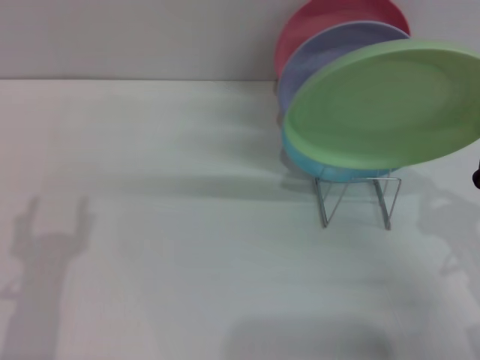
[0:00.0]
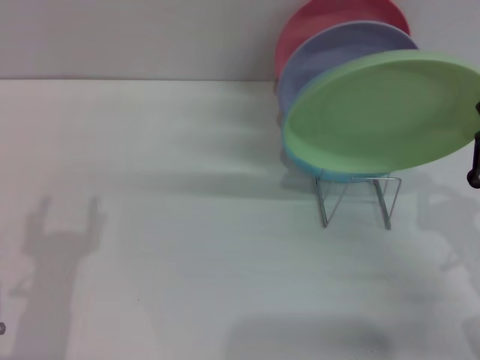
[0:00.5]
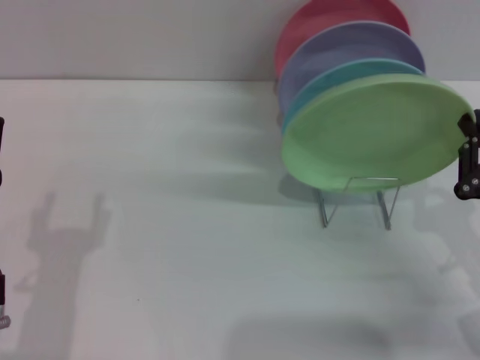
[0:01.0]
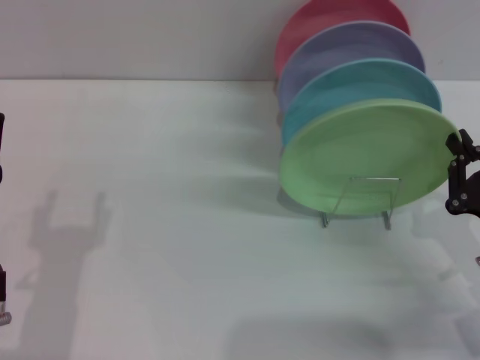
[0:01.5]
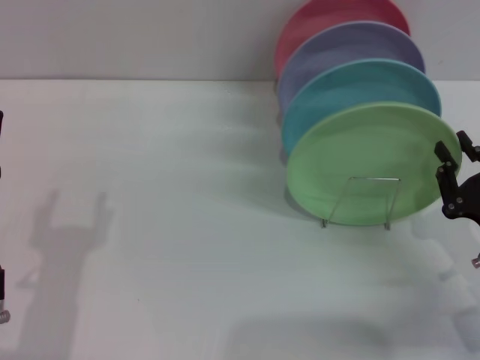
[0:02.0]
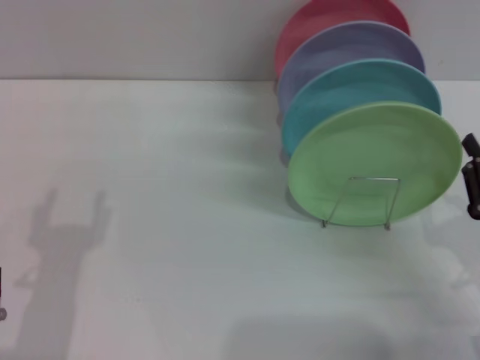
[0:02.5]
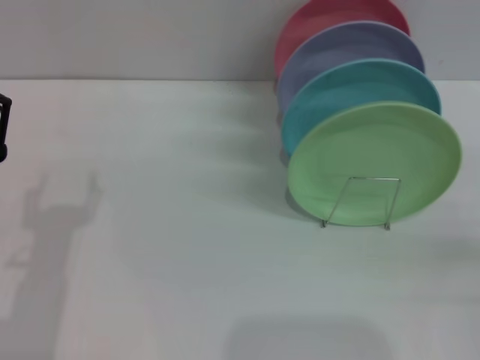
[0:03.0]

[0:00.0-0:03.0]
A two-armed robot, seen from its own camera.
Task of the whole recording: Grip the plate with one hand, pass it to the other, then set it on the shelf.
Step, 0:00.0 to 0:02.0: Place the plate on the shelf with the right gripper.
0:00.0 to 0:01.5: The grippers make only small movements.
0:01.5 to 0:03.0: The right gripper moves to the right and backward, about 10 cm, and opens up.

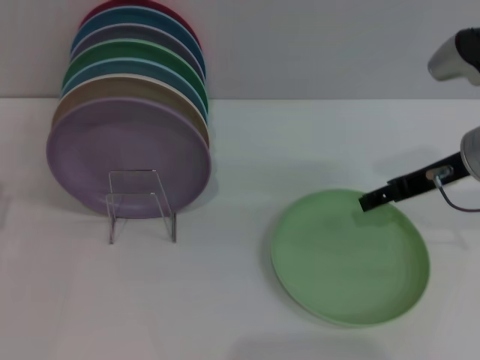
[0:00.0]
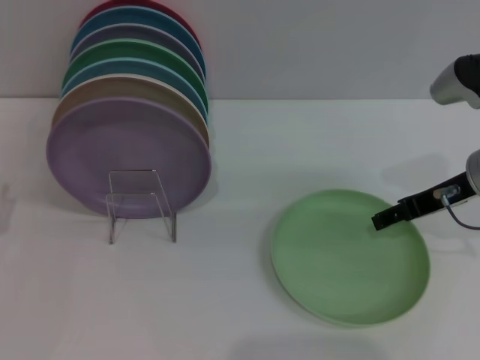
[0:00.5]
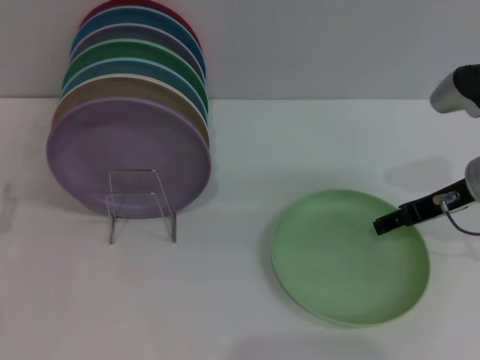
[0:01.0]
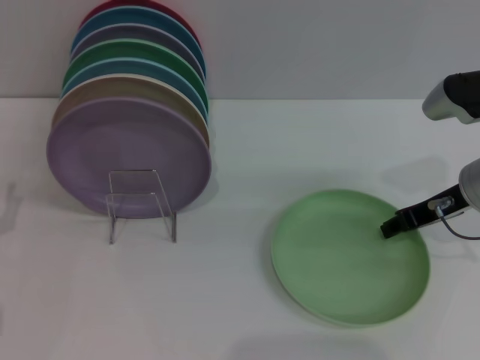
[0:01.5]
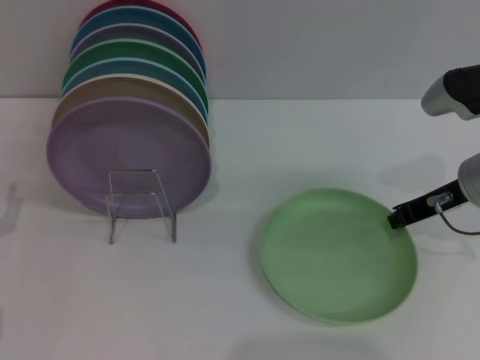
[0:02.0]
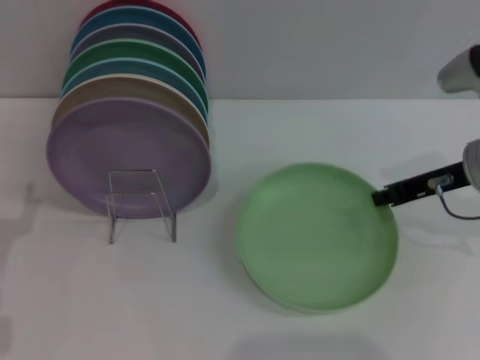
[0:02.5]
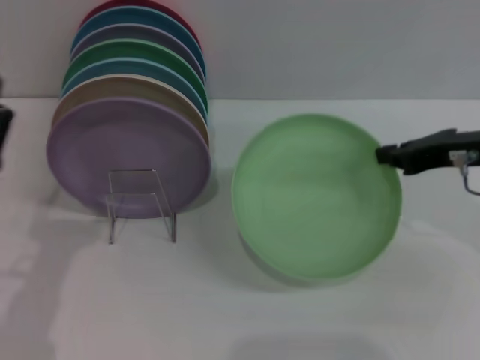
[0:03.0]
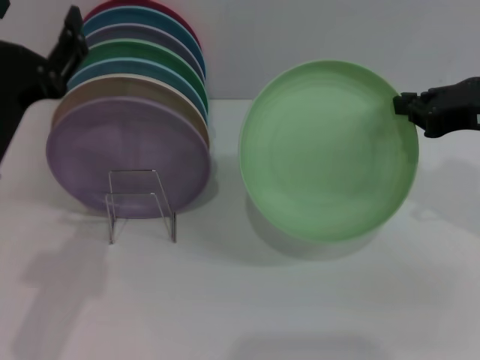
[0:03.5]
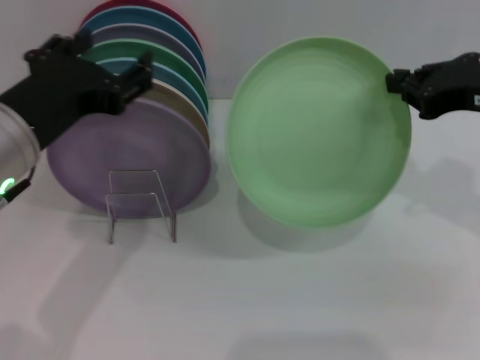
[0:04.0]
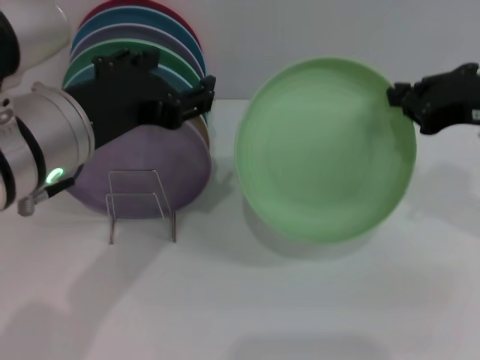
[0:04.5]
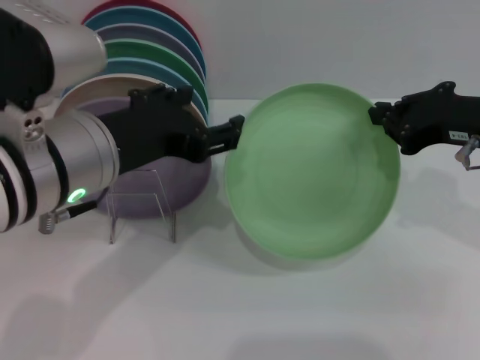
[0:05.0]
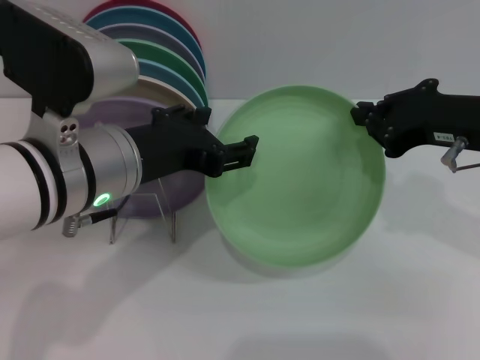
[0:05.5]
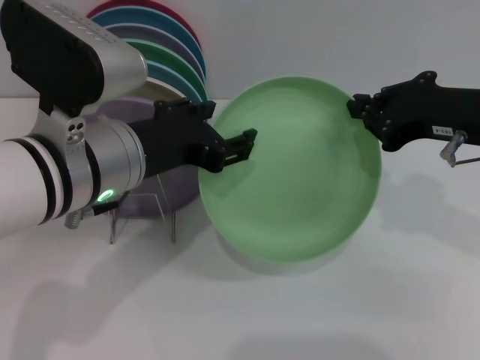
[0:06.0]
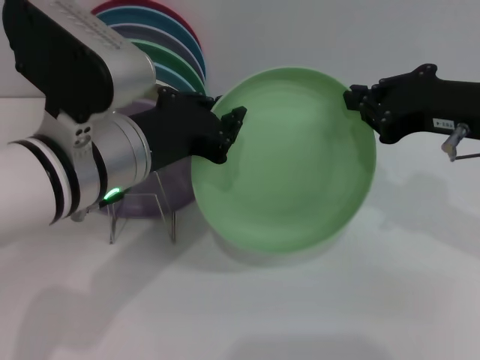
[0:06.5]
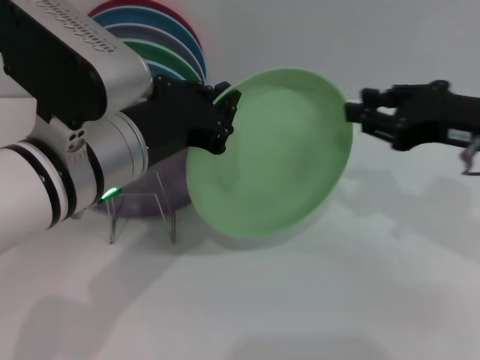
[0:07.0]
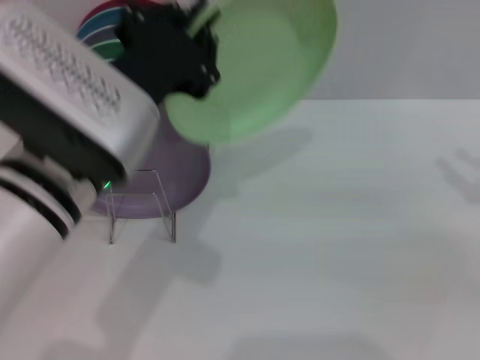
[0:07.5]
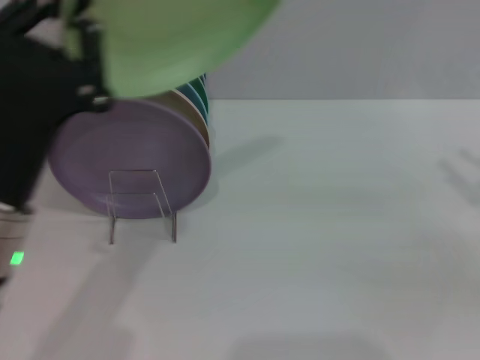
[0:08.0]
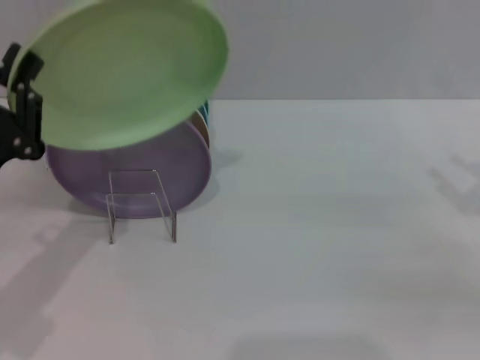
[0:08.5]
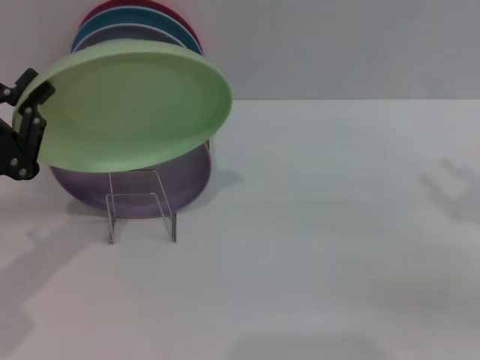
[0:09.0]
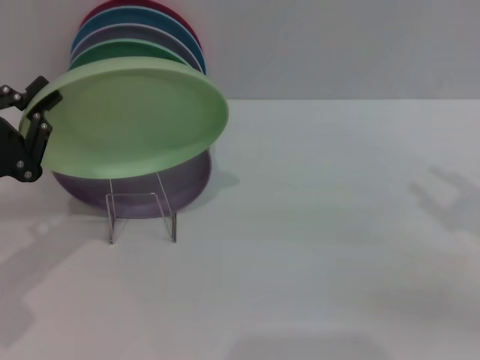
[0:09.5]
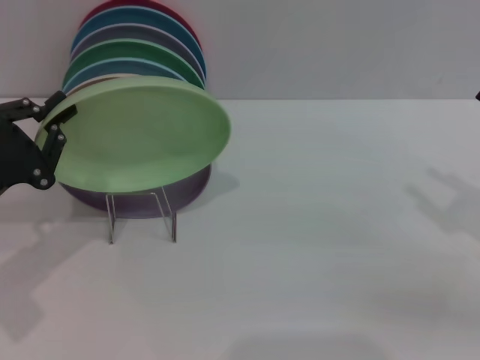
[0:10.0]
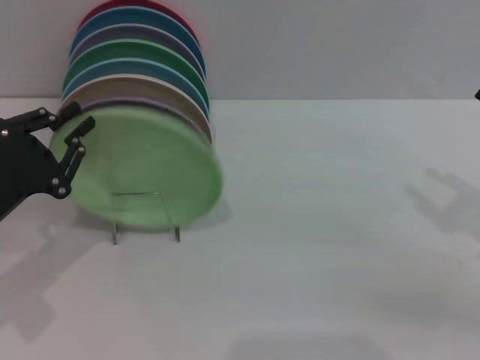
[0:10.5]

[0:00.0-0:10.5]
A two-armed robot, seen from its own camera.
Task of the whole recording: Grip the plate with one hand, pass it to the other, then set it on the shelf.
Step, 0:00.0 to 0:03.5: Pick up the plate with the right gripper.
Step, 0:04.0 to 0:08.5: Pass the plate from the right gripper to the left gripper.
0:00.0 to 0:02.0: The right gripper closes.
0:02.0 to 0:04.0: The right gripper goes approximately 10 cm upward; the left gripper travels upward and to the right by roughly 20 cm.
0:04.0 to 0:06.5: The left gripper shifts about 5 cm to the right, and closes.
0:06.5 to 0:08.5: The right gripper heads to the right, downward and backward, covering approximately 15 cm, and opens up. Meanwhile the left gripper shifts some 15 cm to the left and downward, and closes up.

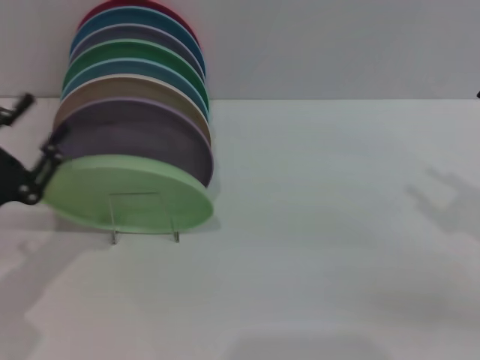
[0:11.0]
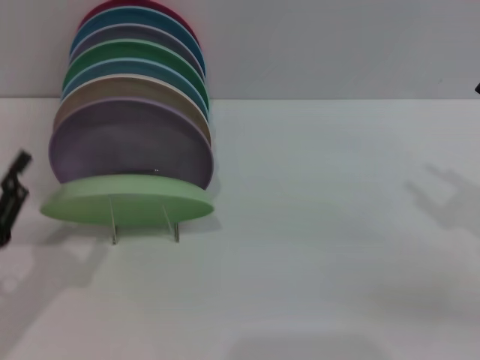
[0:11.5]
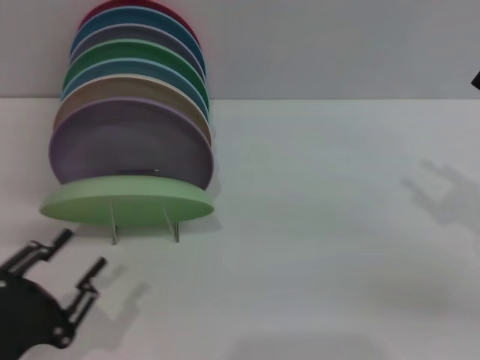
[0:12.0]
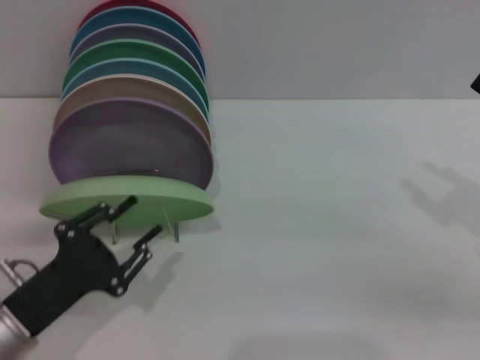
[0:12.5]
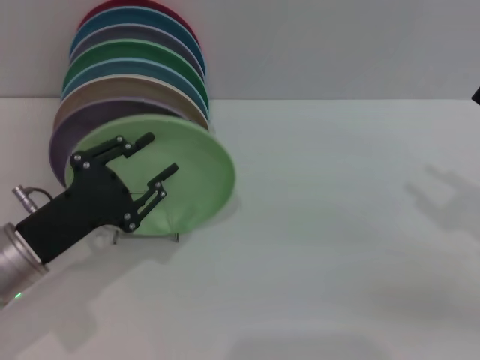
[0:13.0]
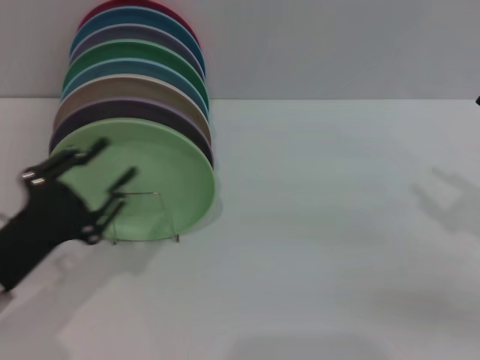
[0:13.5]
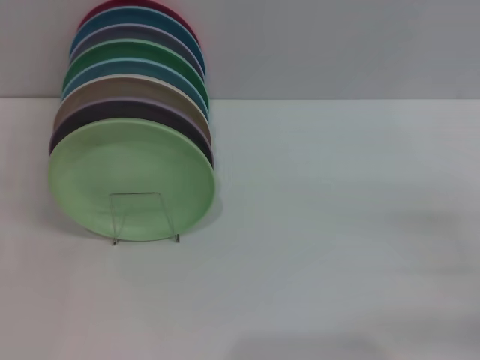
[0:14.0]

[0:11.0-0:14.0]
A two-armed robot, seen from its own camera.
Task of the whole recording: Grip the plate with one hand, pass it to the other, then set it on the shelf.
Step, 0:11.0 to 0:13.0: Place the plate on the shelf with the left gripper.
0:11.0 to 0:12.5: The left gripper travels to the right by some 5 cm.
0:12.5 to 0:14.0: The left gripper shifts roughly 10 cm to the left. The right gripper travels downward by roughly 5 cm.

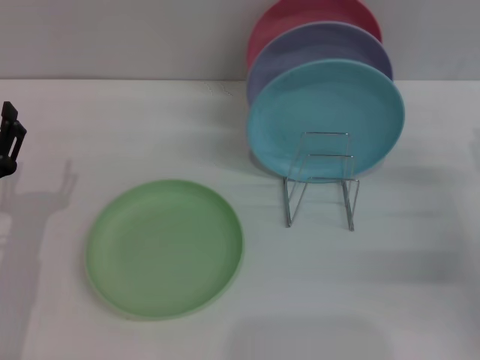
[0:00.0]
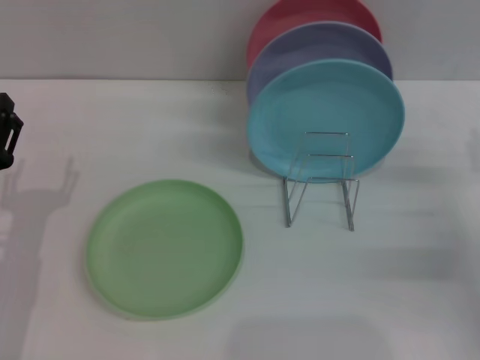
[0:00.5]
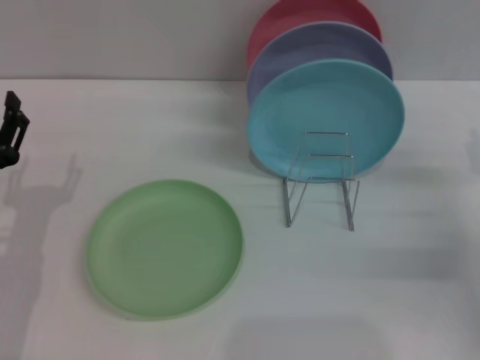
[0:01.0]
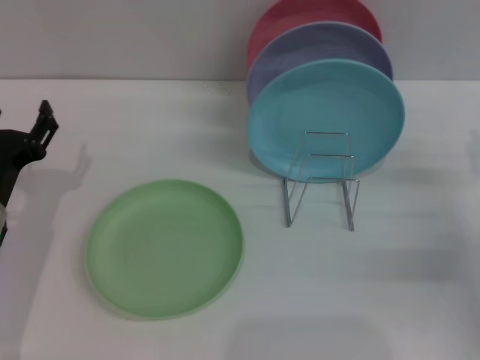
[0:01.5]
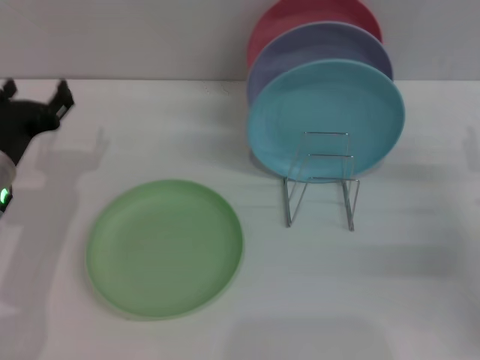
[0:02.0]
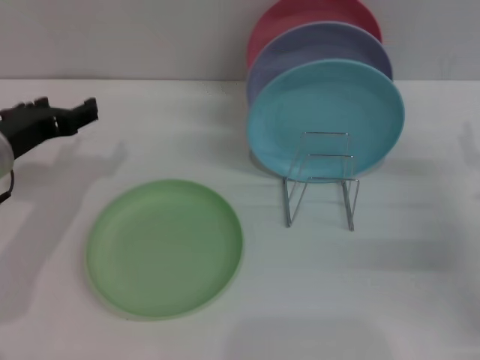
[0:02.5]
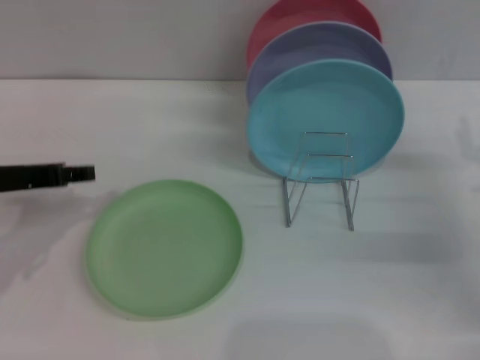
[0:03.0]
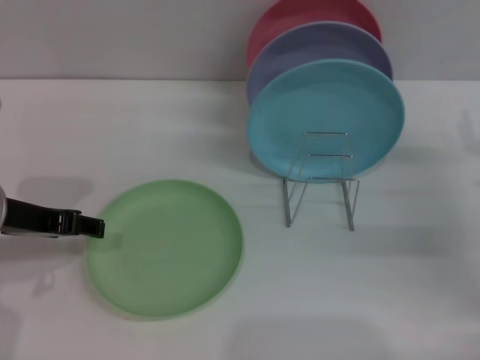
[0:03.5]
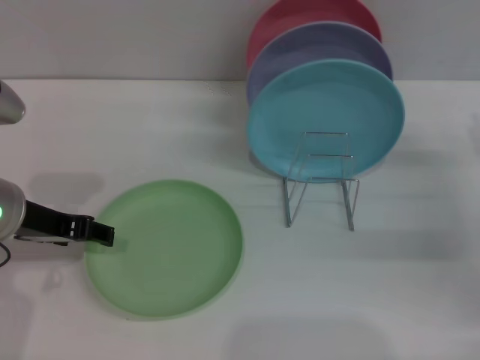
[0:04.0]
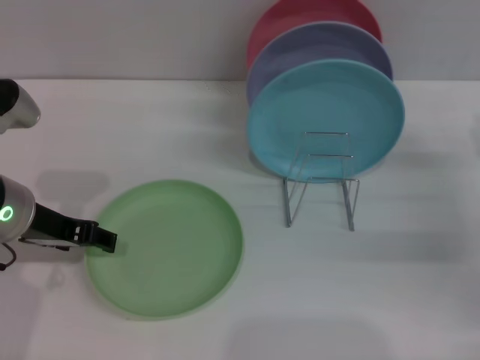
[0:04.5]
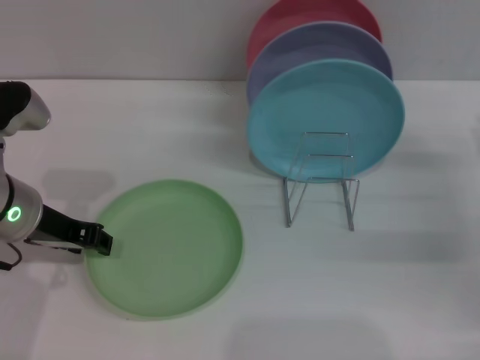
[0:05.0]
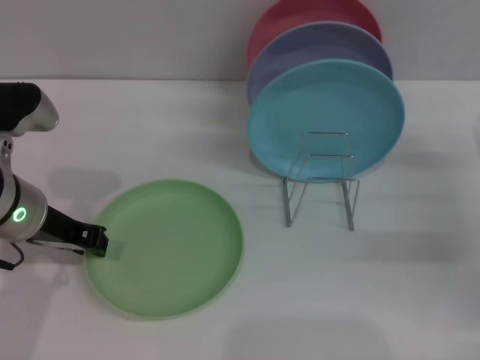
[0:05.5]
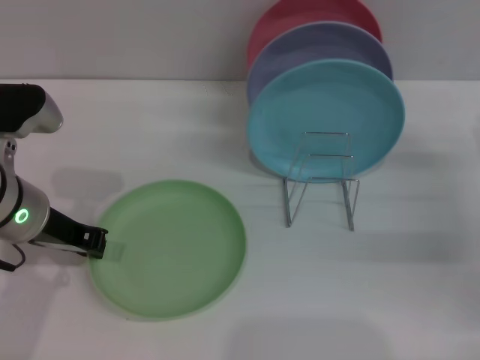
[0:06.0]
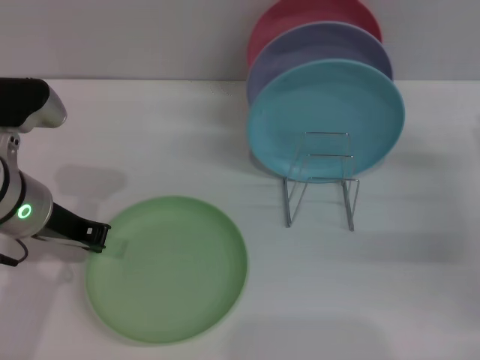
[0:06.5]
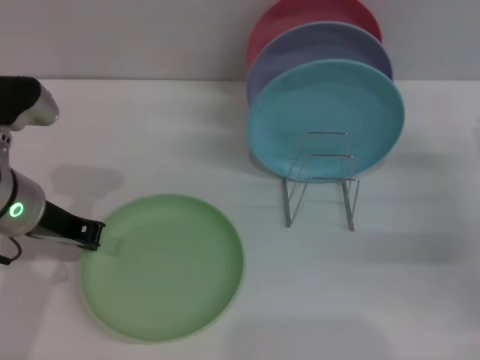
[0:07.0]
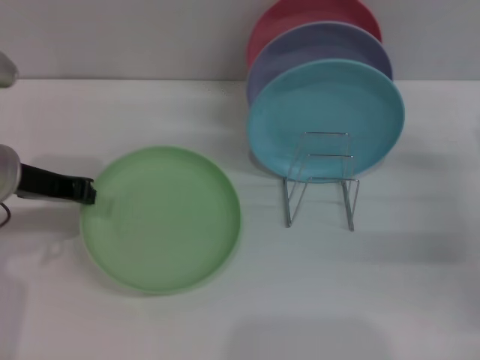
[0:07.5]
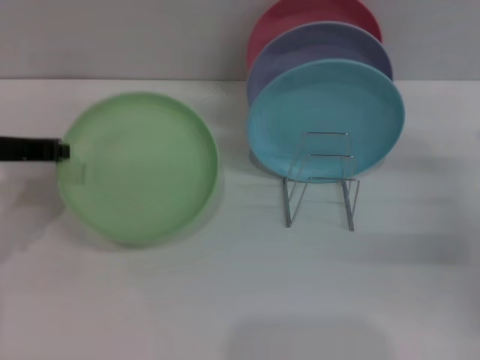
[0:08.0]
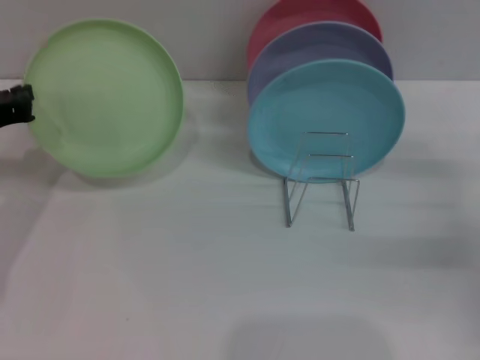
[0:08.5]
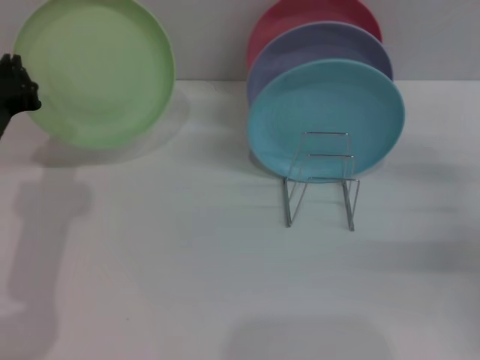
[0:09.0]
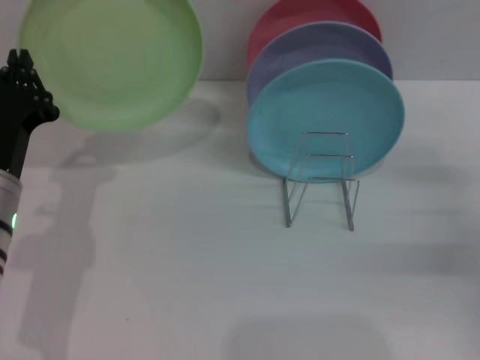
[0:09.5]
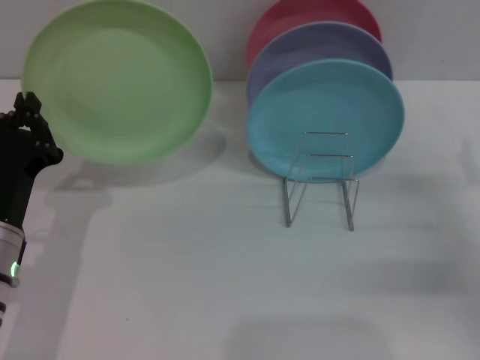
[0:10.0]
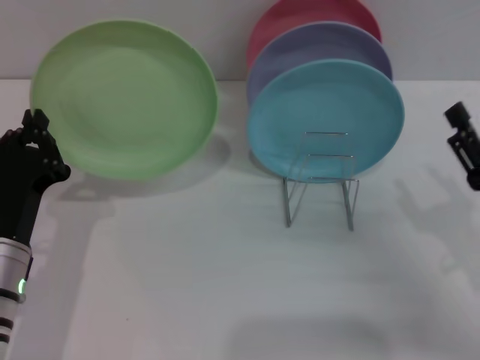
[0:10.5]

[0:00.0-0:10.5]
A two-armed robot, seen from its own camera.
Task of the whole recording: Grip the plate with one hand, pass it to the other, then set it on the shelf.
Step, 0:00.0 to 0:07.5: Pick up the plate with the left gripper.
0:00.0 to 0:02.0: The left gripper shifts some 10 cm forward and upward.
0:02.0 to 0:04.0: The left gripper goes approximately 5 cm upward.
0:04.0 to 0:06.5: The left gripper closes up.
0:06.5 to 0:08.5: The left gripper is displaced to the left by about 10 cm.
0:08.5 to 0:10.5: The left gripper shifts some 15 cm backward, downward and to the right. The right gripper shifts about 10 cm backward and to the left.
